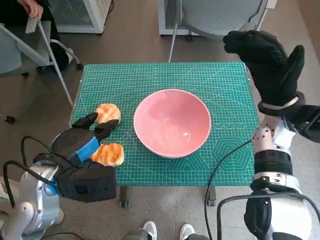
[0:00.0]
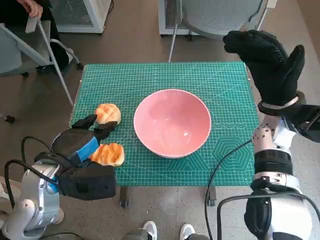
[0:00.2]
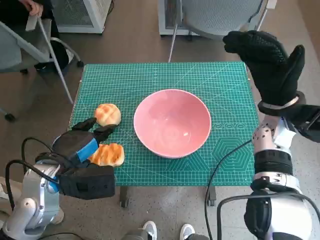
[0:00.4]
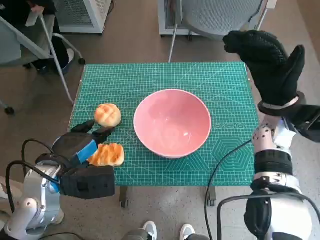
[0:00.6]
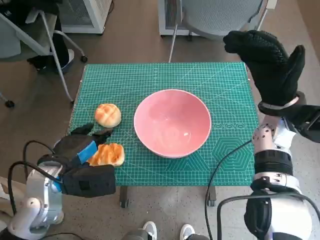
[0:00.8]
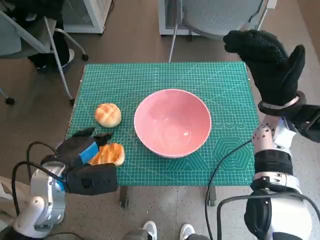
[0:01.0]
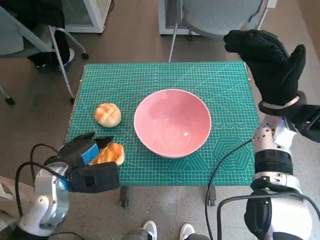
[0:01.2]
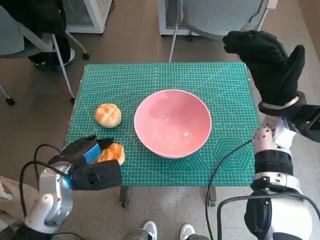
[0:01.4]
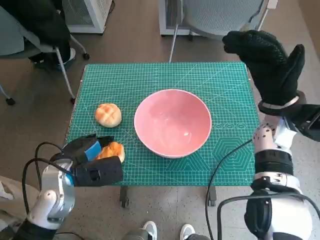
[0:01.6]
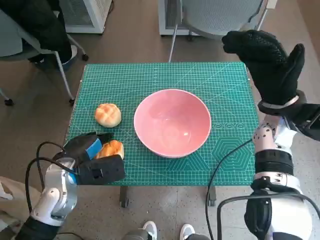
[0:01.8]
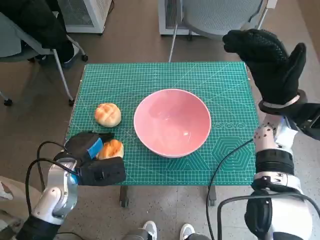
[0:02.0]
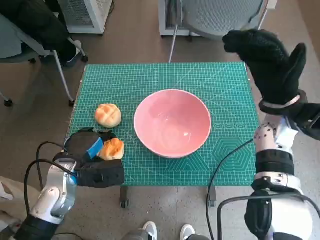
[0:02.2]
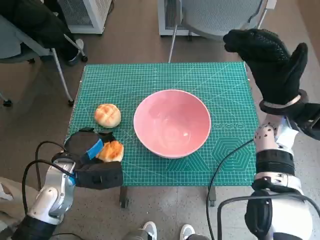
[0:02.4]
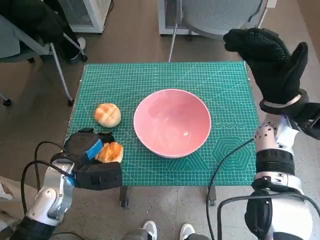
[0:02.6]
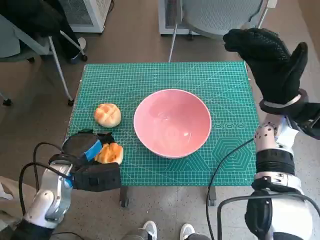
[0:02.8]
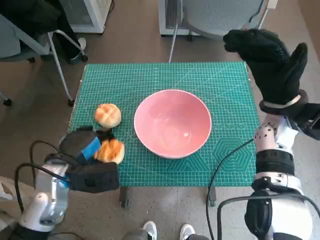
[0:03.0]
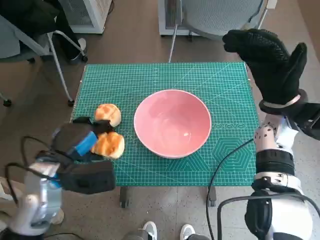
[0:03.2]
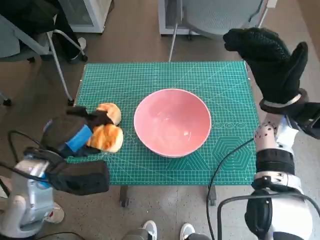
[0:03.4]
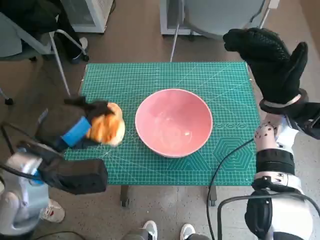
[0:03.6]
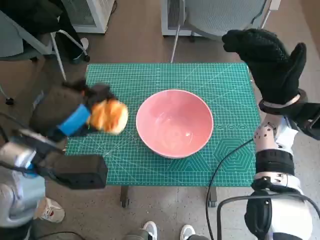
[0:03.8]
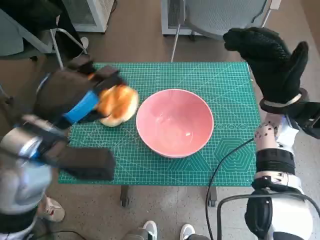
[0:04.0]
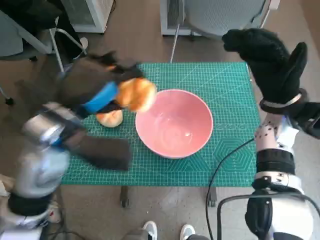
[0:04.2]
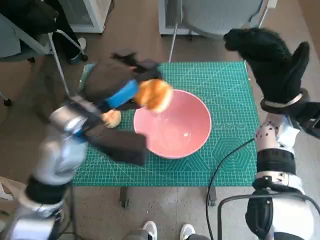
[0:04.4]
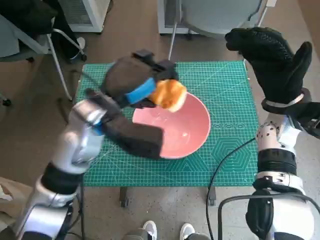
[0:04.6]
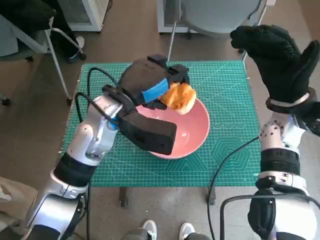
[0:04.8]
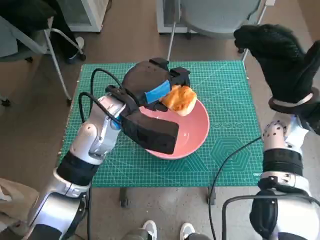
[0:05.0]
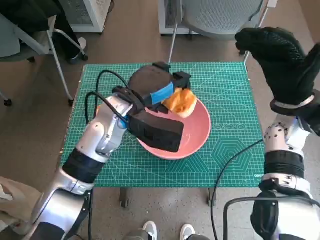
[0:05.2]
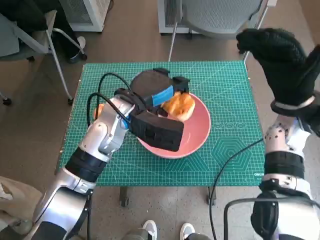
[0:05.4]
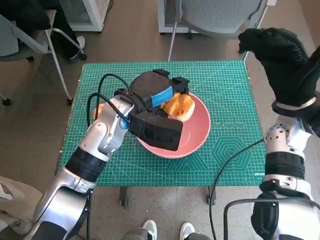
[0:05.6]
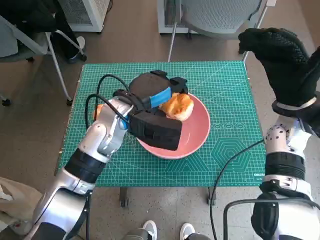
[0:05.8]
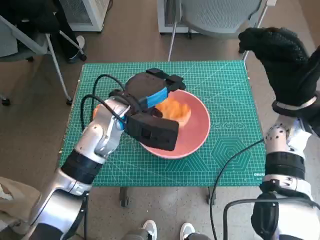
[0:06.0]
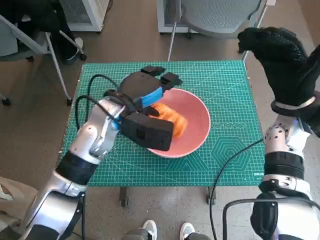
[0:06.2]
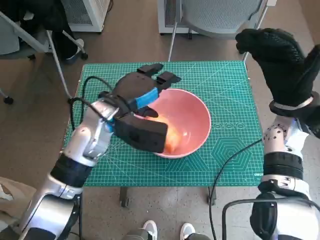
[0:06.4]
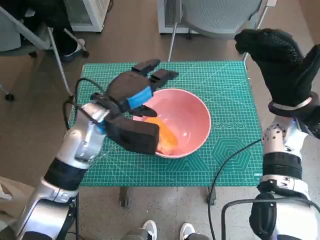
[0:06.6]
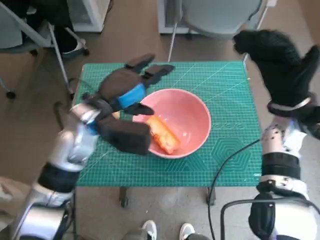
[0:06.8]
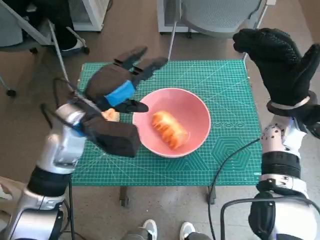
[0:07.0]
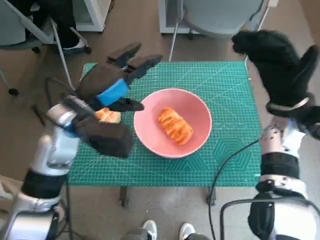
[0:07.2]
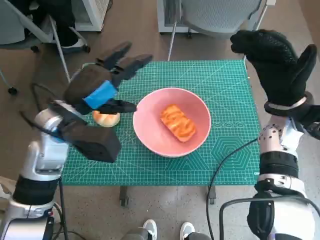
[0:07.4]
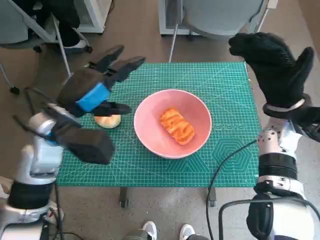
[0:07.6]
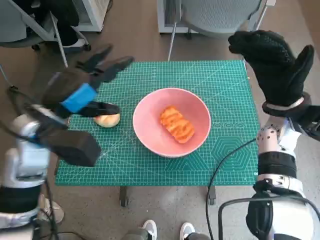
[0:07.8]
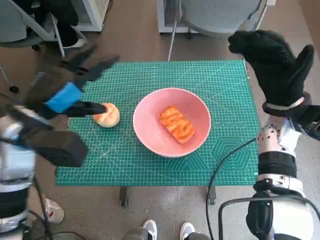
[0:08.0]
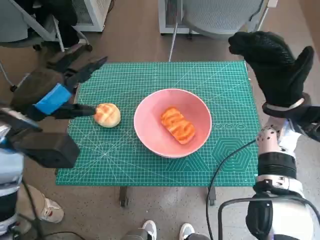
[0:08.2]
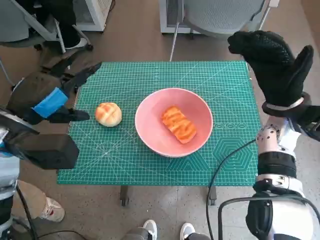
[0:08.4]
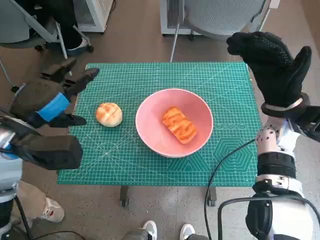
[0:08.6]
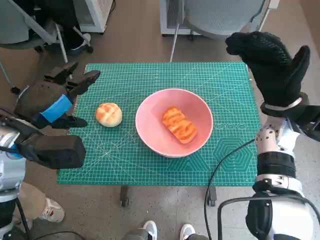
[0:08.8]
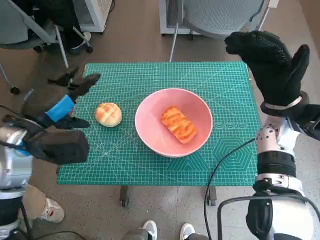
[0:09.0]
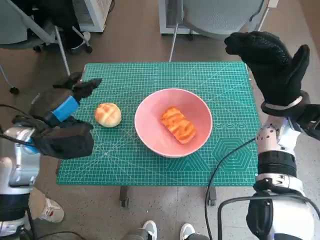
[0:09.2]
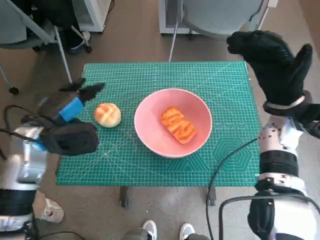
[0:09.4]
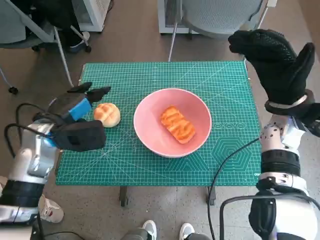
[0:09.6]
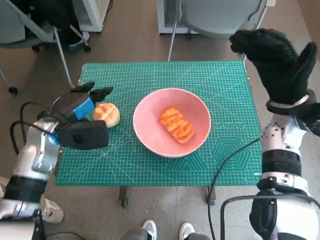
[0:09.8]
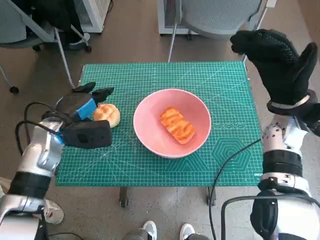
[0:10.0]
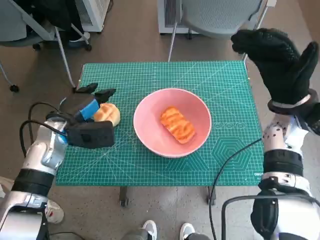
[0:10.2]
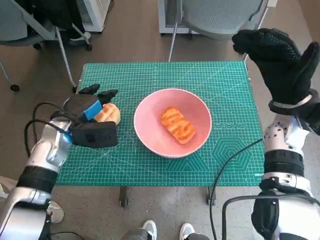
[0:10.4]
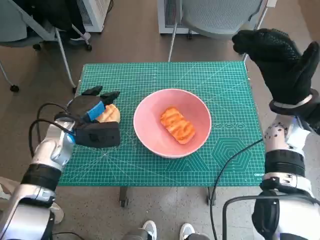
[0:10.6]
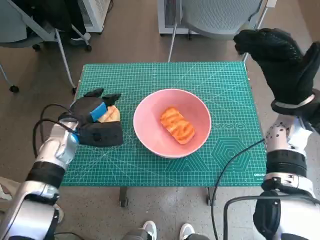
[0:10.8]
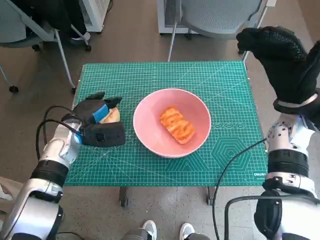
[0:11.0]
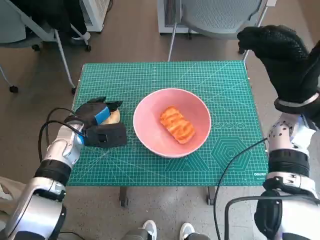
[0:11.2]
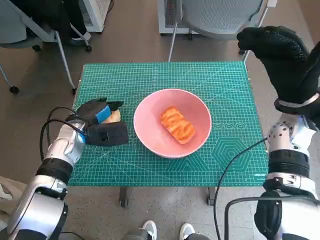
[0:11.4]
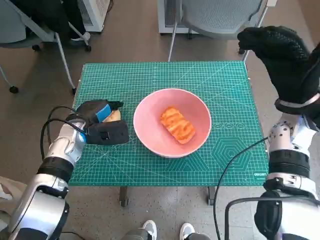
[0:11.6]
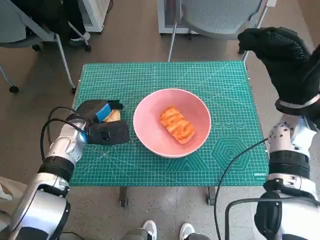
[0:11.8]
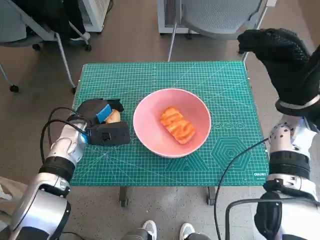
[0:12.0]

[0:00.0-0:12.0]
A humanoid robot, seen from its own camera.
Step, 0:00.0 to 0:02.0: Grasp the long bread with left hand.
Step, 0:02.2 to 0:06.6: Place the long bread in pink bowl with left hand.
0:00.0 to 0:01.6: The left hand moves downward, approximately 5 cm.
0:01.6 to 0:03.0: The hands make only small movements.
0:03.0 to 0:04.4: The left hand shifts roughly 15 cm upward and to the right.
0:04.4 to 0:06.0: The left hand travels forward by roughly 5 cm.
0:06.0 to 0:07.6: The left hand is displaced to the left by about 10 cm.
0:07.6 to 0:09.0: The left hand is displaced to the left by roughly 5 cm.
0:09.0 to 0:10.4: The left hand is displaced downward and forward by roughly 10 cm.

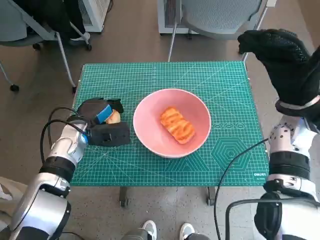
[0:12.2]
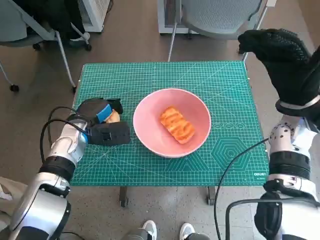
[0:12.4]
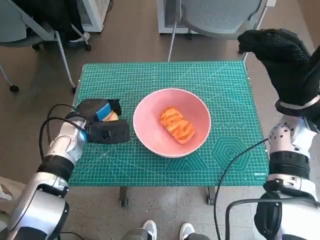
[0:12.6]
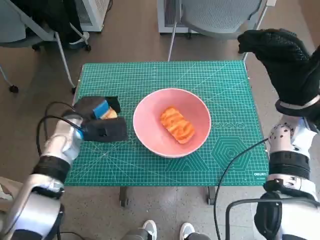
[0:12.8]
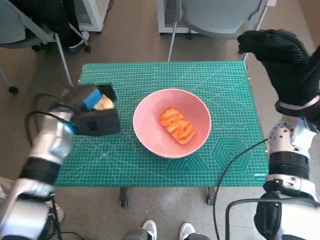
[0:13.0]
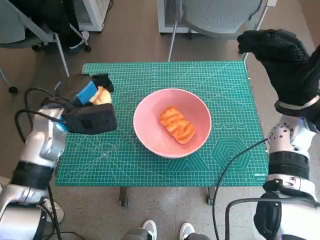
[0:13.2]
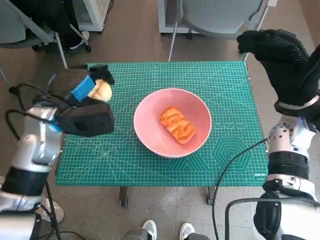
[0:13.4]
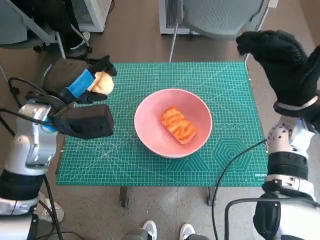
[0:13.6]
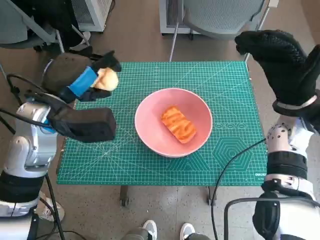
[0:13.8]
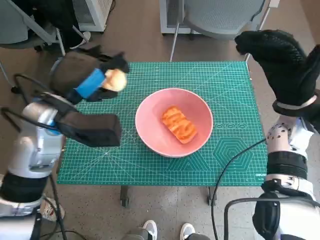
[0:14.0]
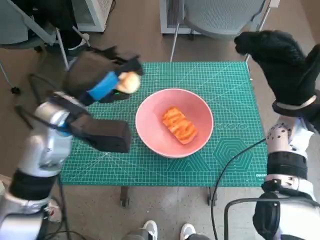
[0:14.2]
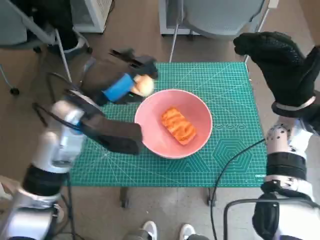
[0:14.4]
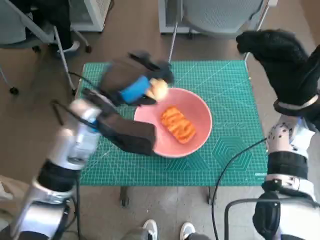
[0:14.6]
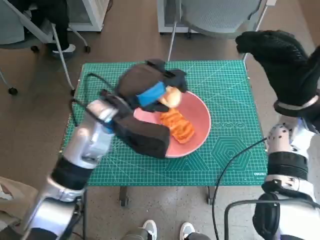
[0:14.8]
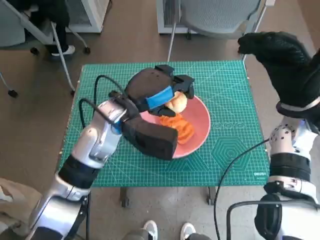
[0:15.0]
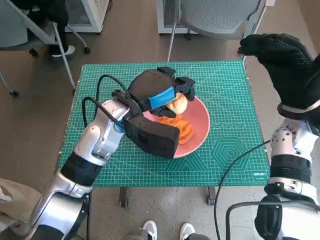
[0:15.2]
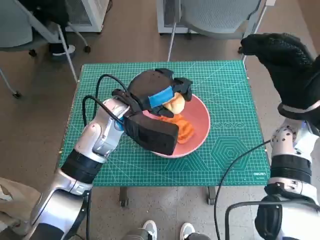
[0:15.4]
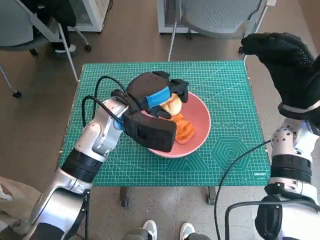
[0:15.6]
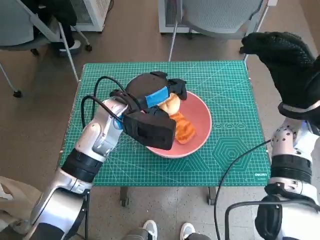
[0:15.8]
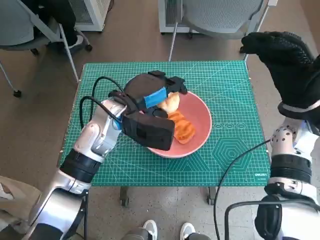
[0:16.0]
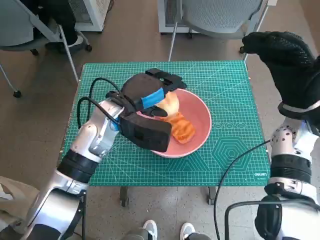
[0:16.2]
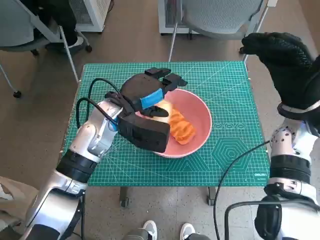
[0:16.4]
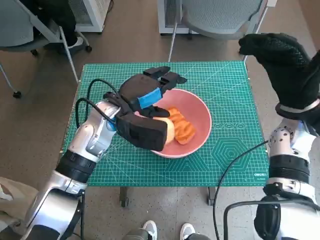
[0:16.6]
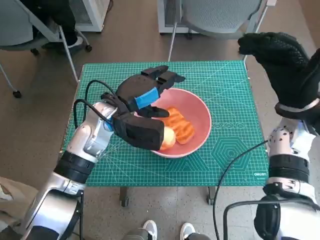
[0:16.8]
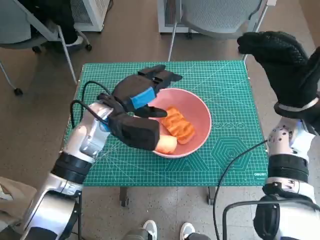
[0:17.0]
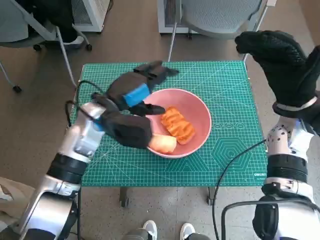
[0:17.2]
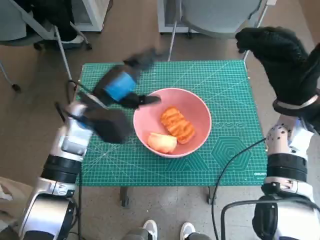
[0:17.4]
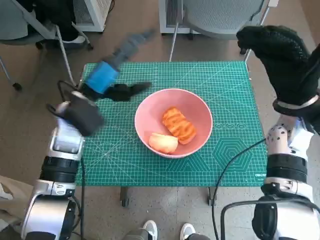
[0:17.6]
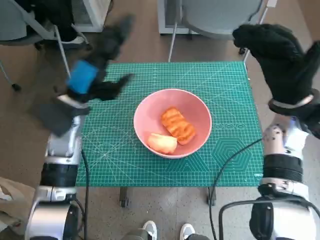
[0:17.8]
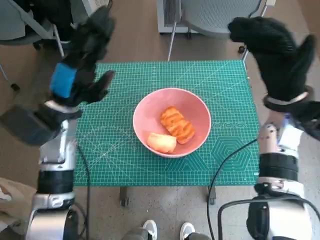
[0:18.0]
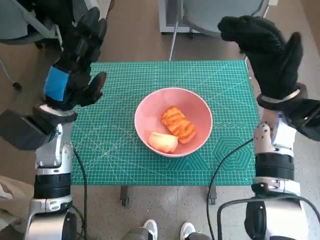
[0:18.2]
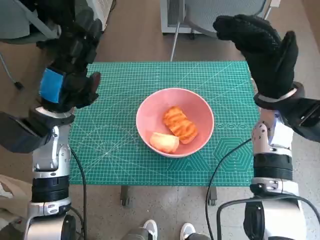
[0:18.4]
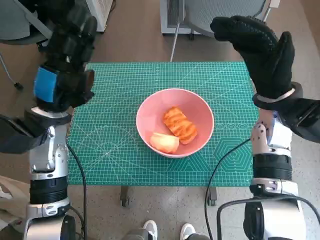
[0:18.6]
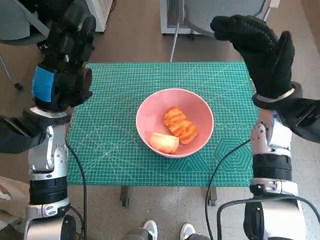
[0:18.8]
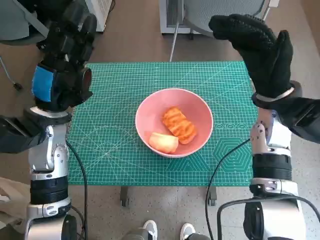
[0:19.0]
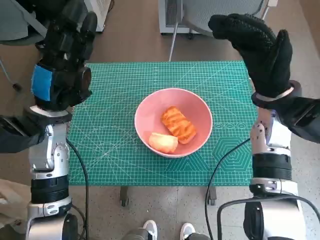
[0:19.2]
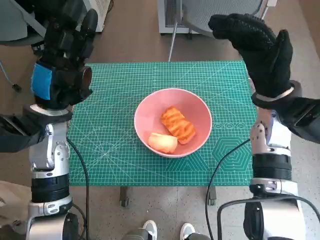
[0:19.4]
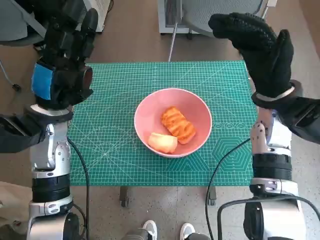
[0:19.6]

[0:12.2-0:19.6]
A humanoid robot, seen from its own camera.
Step, 0:12.4 to 0:16.6: Place the round bread in pink bowl with left hand.
0:12.2 to 0:13.6: The left hand goes some 10 cm upward.
0:13.6 to 0:15.2: The left hand travels to the right by roughly 10 cm.
0:15.2 to 0:16.6: The hands stay close to where they were, moving slightly.
0:16.6 to 0:18.2: The left hand moves to the left, approximately 10 cm.
0:18.2 to 0:19.6: The hands stay close to where they were, moving slightly.

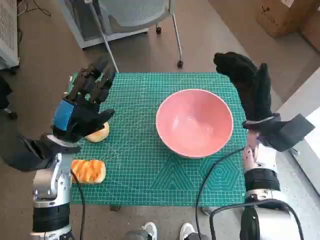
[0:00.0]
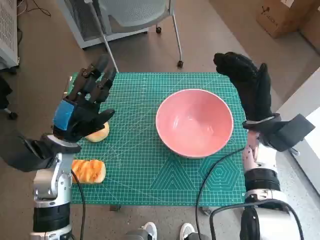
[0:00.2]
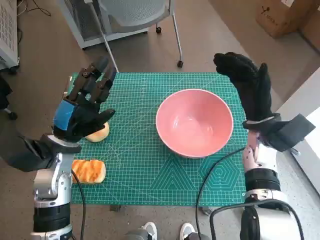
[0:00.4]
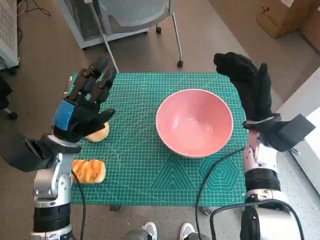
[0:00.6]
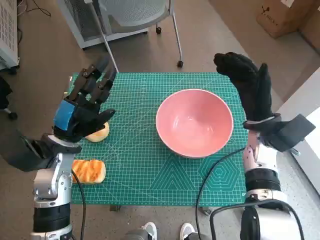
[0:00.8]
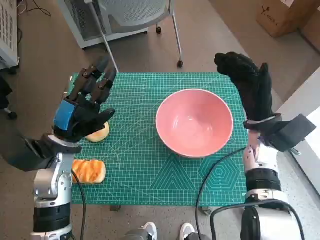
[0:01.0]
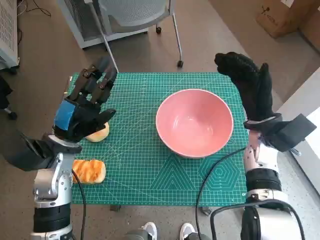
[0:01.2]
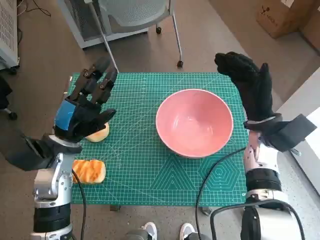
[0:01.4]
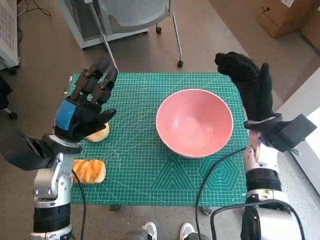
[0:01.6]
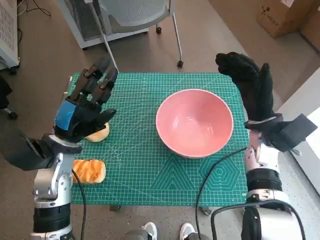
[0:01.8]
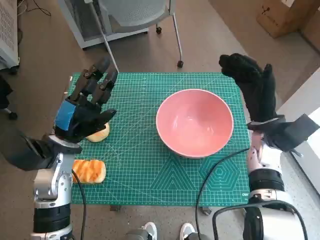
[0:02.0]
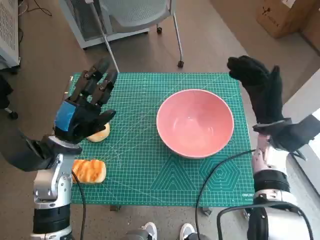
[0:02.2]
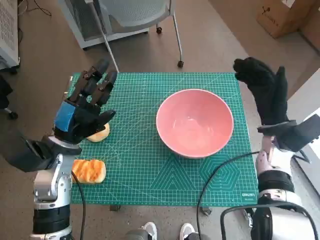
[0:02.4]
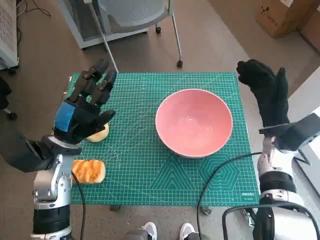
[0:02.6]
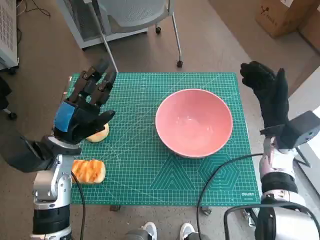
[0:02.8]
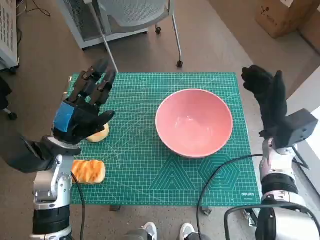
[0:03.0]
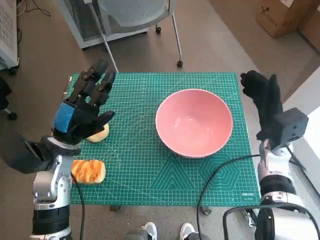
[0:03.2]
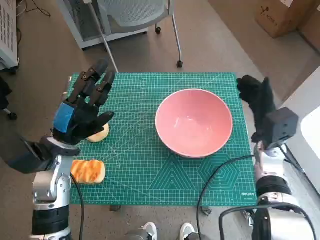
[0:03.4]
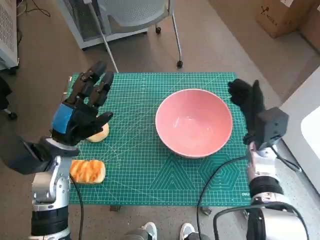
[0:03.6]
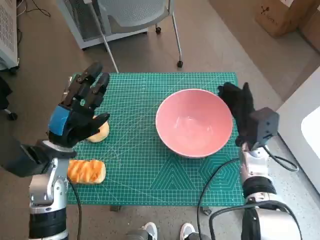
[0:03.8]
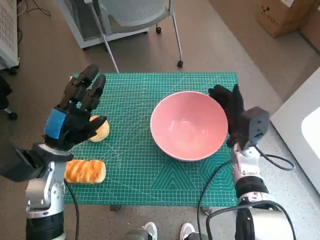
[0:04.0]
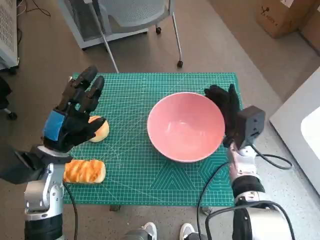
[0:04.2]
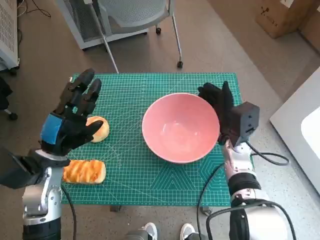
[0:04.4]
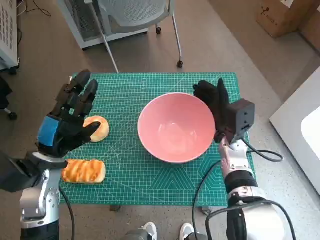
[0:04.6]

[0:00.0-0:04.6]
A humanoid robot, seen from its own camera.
0:03.0 to 0:04.6: The right hand travels to the left by approximately 10 cm.
